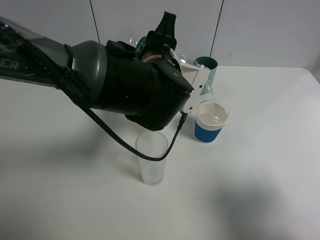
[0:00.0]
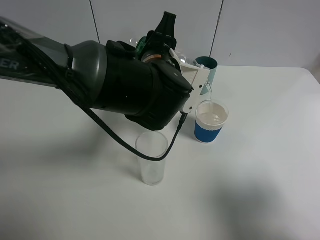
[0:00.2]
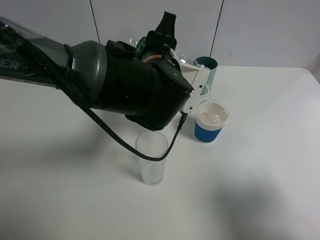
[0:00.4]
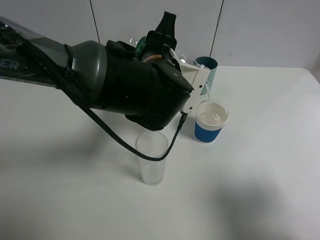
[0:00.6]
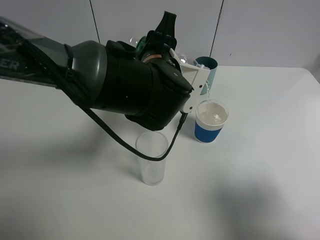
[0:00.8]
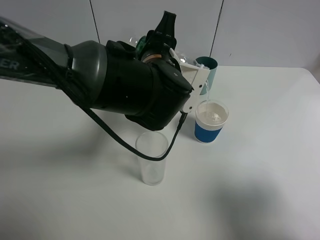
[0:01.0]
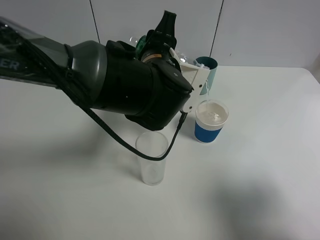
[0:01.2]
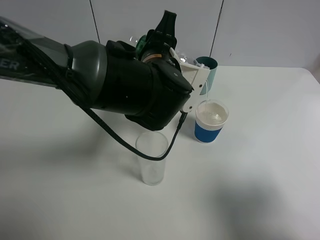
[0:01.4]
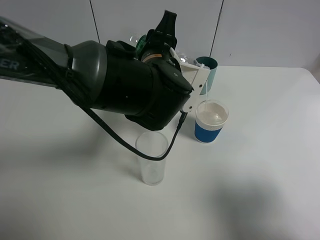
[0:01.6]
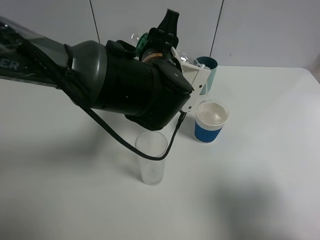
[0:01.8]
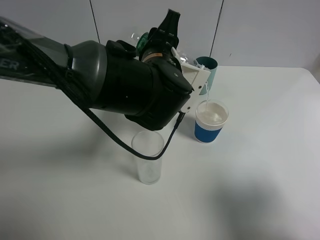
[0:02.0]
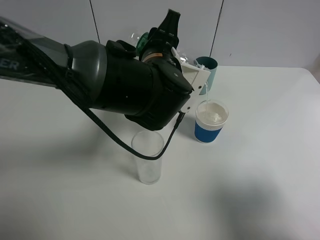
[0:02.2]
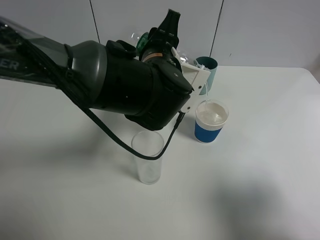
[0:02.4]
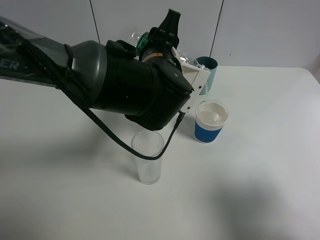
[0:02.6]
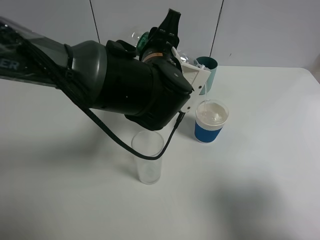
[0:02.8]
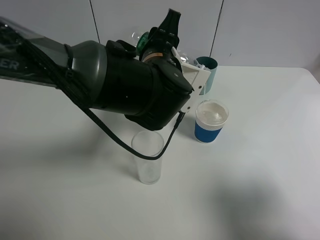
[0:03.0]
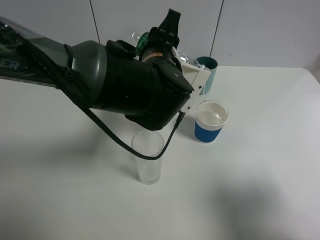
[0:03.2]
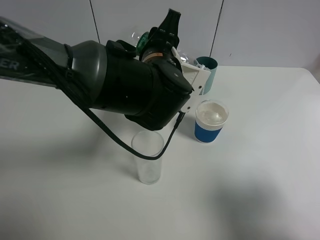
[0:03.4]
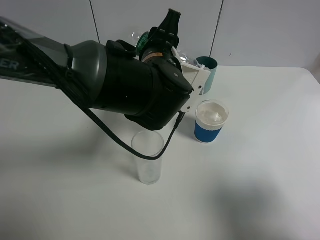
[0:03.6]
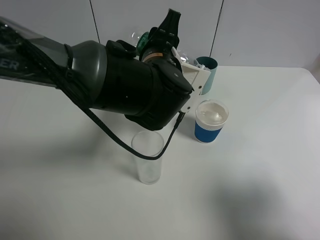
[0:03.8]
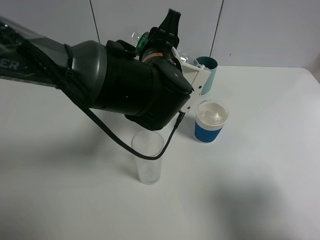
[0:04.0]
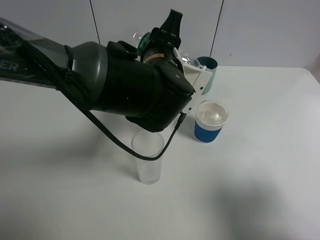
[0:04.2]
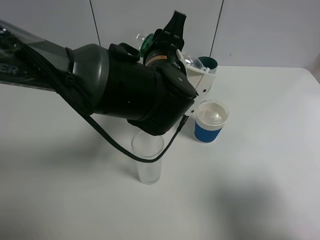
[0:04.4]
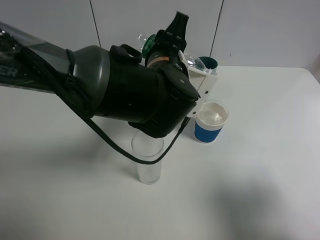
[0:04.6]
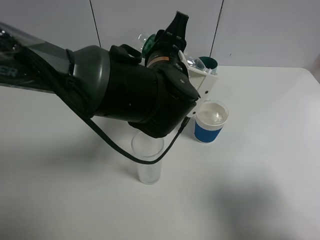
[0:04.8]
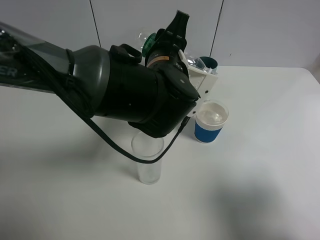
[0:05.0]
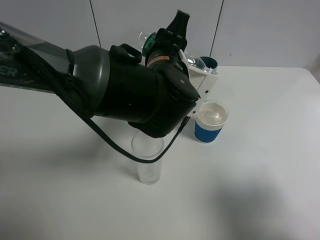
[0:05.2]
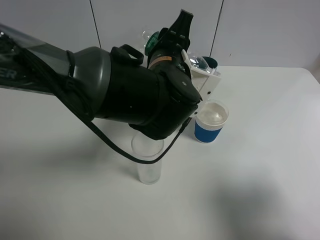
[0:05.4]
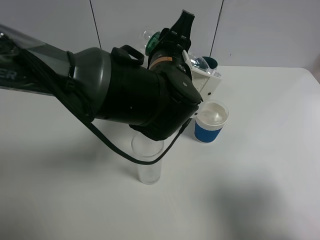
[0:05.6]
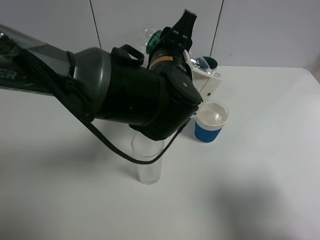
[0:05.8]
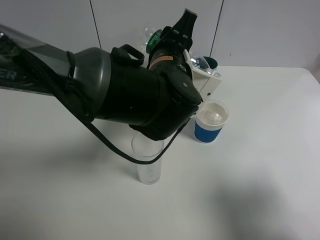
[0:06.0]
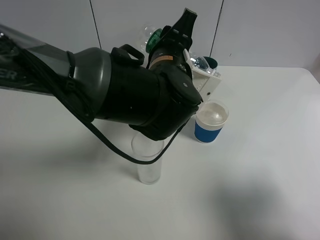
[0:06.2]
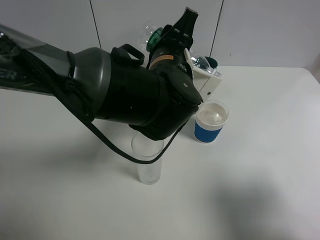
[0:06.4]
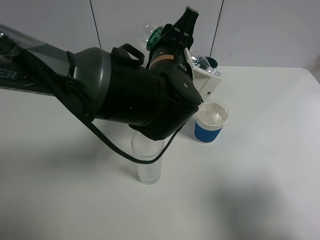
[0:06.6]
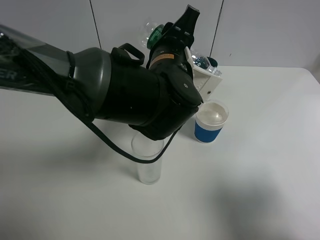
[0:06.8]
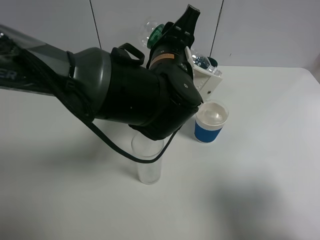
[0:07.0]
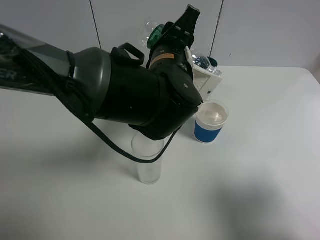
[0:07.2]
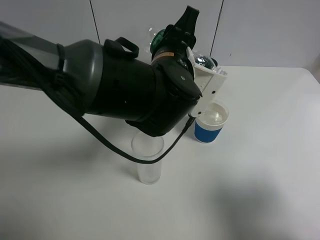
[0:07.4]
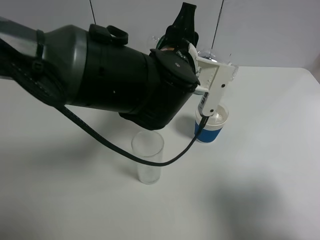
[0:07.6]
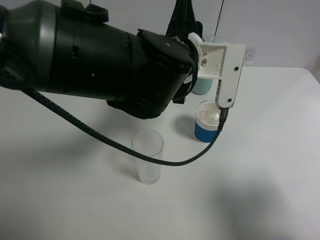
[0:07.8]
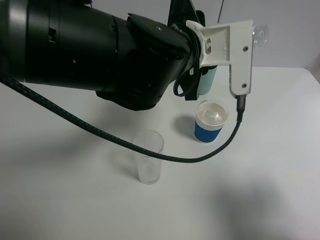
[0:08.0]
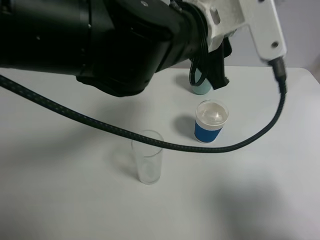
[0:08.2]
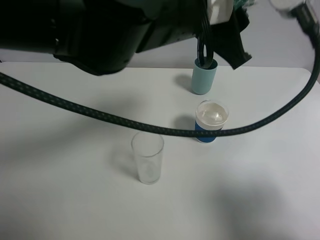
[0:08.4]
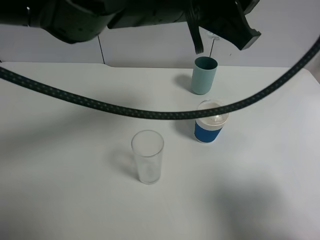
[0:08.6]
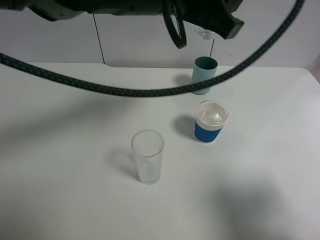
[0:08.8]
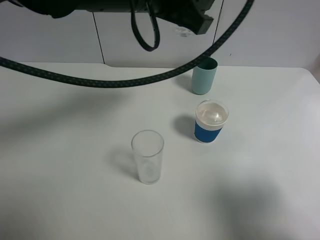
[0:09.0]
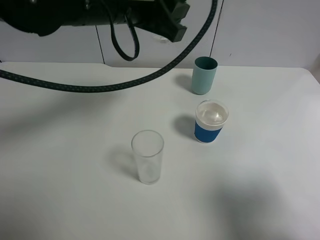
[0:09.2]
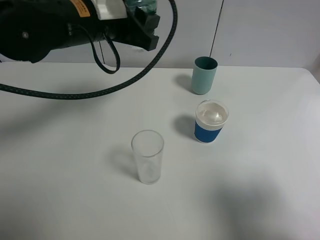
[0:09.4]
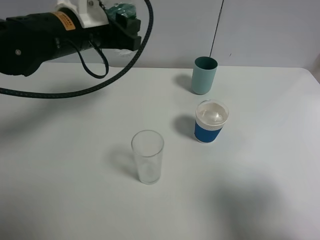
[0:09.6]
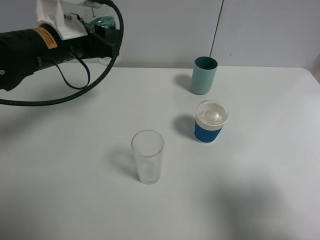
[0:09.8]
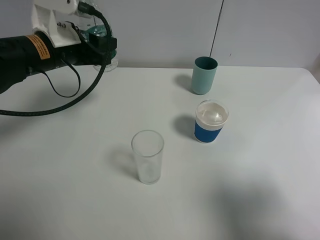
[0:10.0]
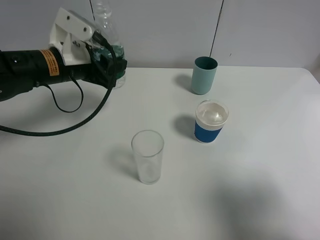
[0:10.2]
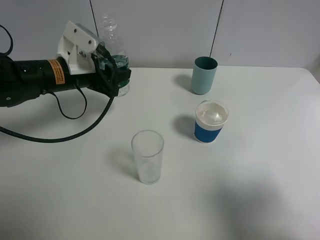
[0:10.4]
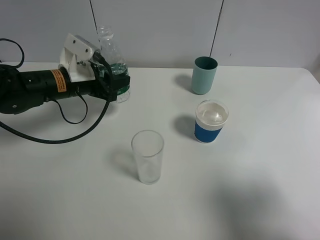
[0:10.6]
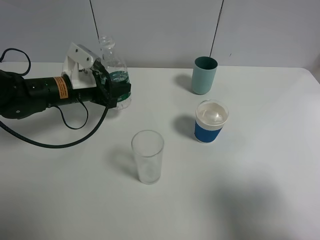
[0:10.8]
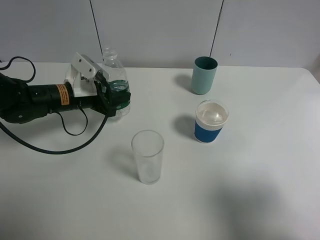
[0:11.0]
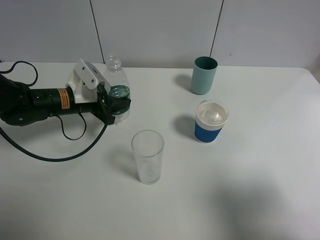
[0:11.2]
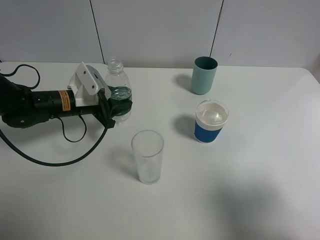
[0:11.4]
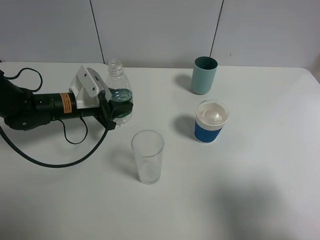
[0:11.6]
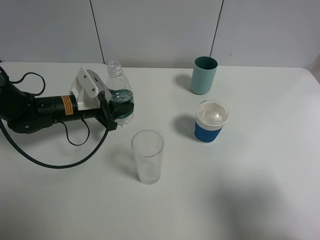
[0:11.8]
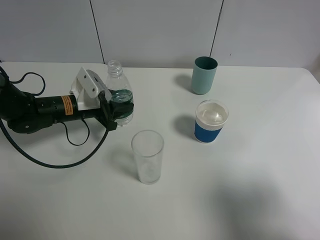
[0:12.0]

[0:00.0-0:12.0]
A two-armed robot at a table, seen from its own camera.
Task of the whole recording: use a gripper to hold the bottle of the drink and pour it into a random cup.
Step, 0:00.0 to 0:07.6: Pour the mineral water into the paper cup with the left gripper.
0:00.0 to 0:03.0: Both grippers stay about where they are.
0:03.0 to 0:04.4: Both grippers stay put.
0:04.4 to 0:07.6: The grippers move only a little.
0:07.6 to 0:09.0: The left gripper shifts some 10 cm upward.
0:09.0 to 0:10.4: The left gripper shifts some 20 cm downward and to the left.
0:10.4 to 0:12.0: The left gripper heads downward, covering about 10 cm.

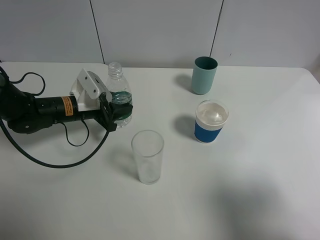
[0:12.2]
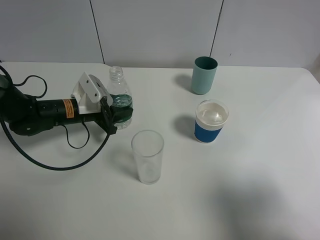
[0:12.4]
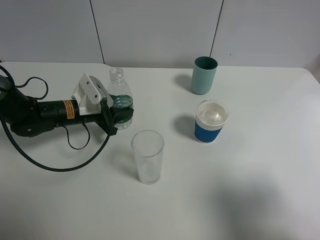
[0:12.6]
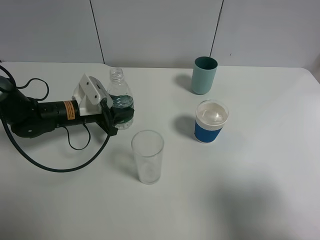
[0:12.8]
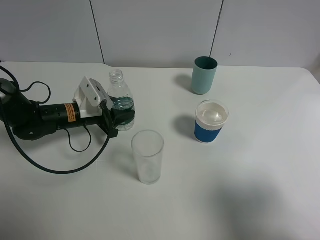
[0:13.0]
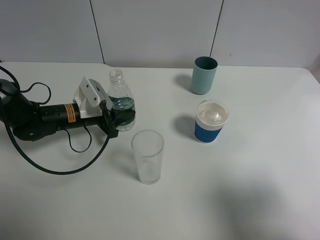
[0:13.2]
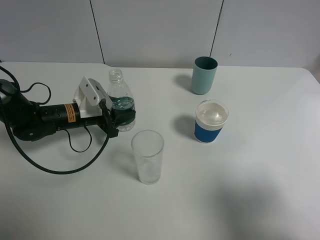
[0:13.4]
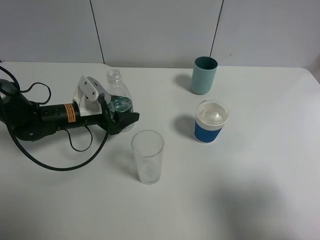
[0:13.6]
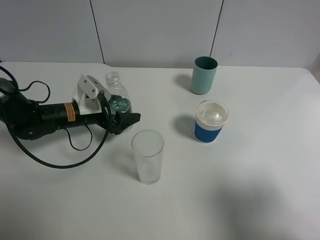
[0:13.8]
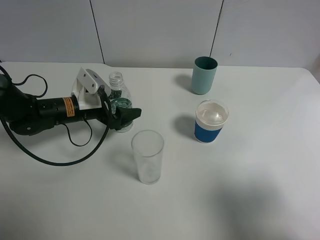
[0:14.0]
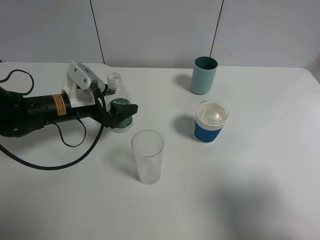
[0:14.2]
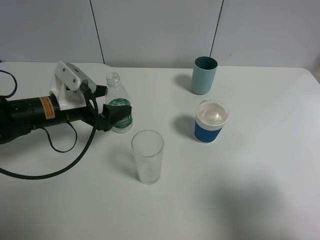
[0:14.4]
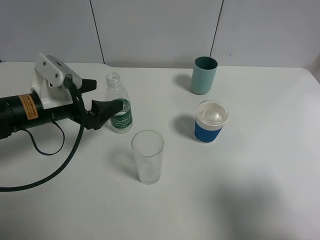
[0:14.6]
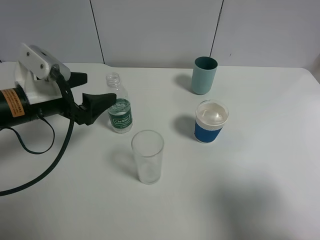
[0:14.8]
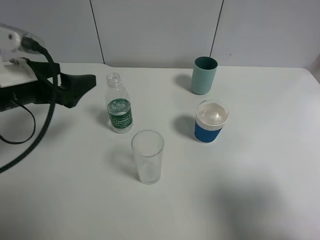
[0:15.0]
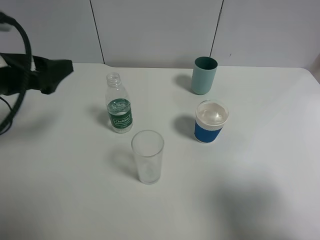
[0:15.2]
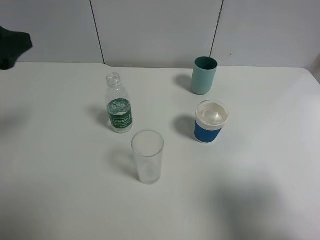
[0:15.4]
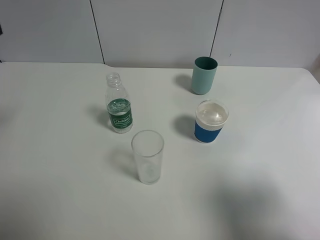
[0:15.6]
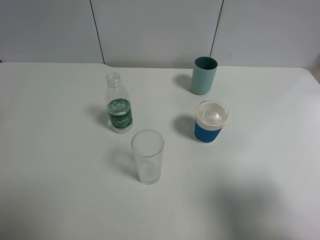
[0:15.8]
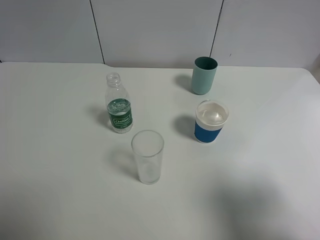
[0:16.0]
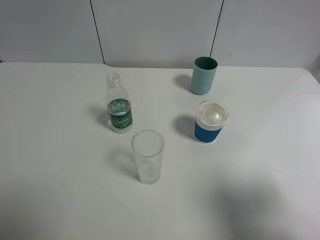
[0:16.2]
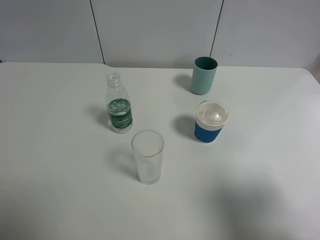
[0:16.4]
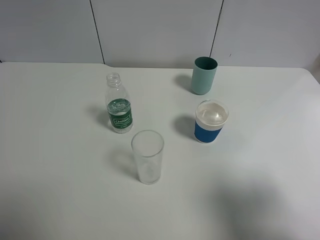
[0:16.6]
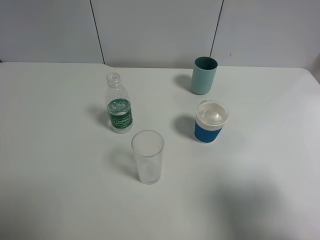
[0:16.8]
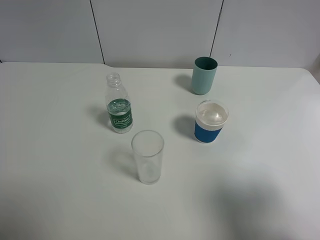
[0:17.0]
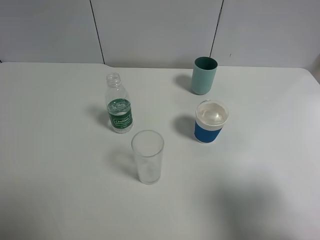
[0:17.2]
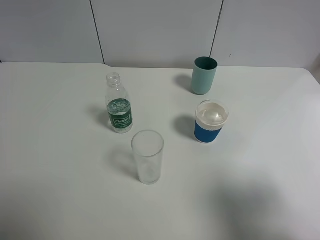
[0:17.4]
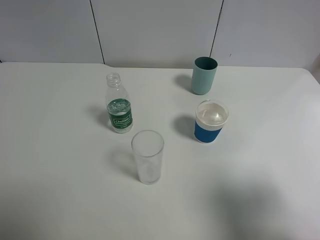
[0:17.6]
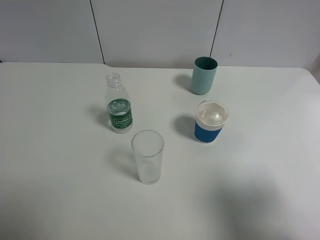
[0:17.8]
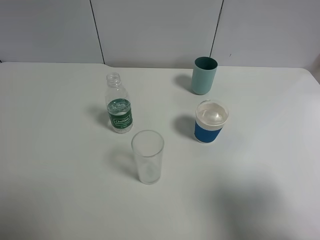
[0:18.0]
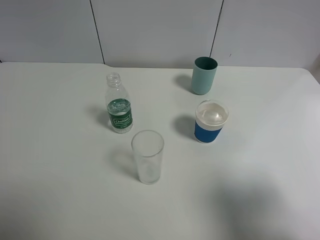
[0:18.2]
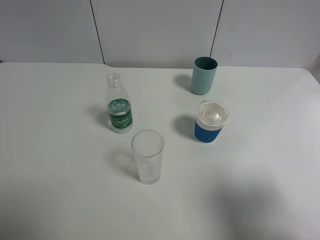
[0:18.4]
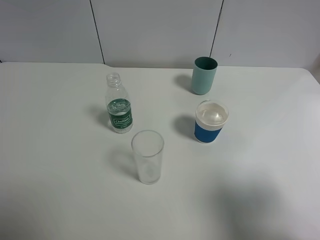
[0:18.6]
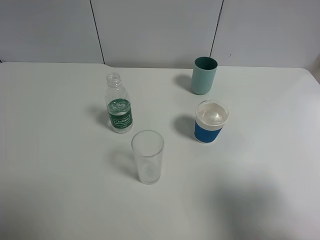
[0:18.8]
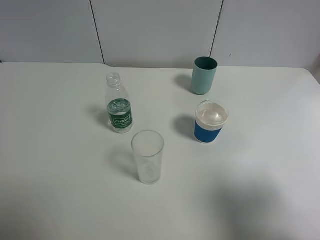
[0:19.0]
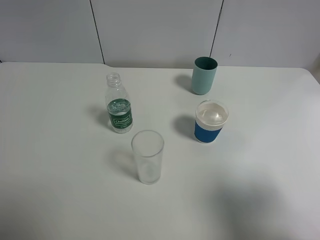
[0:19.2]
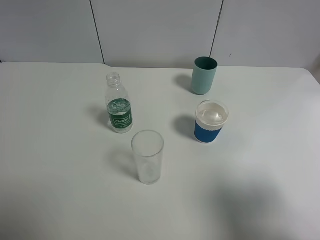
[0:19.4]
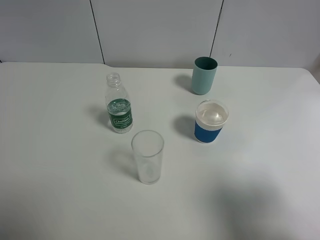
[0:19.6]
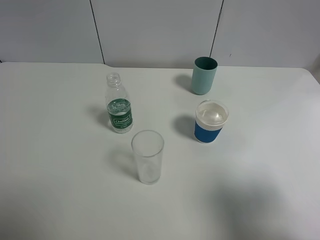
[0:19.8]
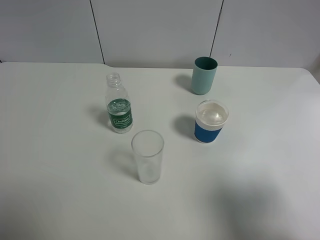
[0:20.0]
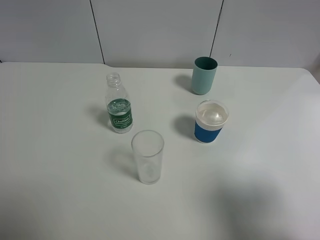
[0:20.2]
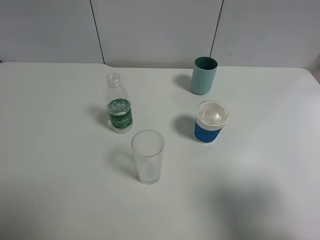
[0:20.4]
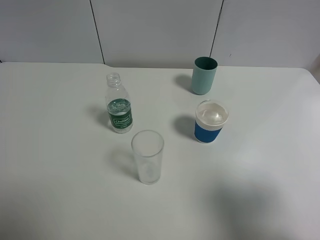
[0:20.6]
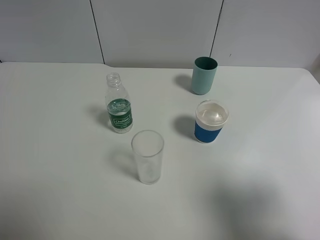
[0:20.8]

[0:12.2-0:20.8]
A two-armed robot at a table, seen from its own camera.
Task of the whole recording: use a gripper to hold the bottle of the drink and pour it into a random cup.
Step, 0:12.2 to 0:14.6: Place the mineral water bottle on the table with the left gripper.
0:12.2 to 0:13.6: The left gripper opens its fingers.
0:13.6 to 0:15.0: The left gripper is displaced upward and backward by roughly 15 cm.
0:15.0 to 0:16.6: The left gripper is displaced backward, upward and to the left by roughly 25 cm.
0:18.0 to 0:20.8: The two grippers keep their place.

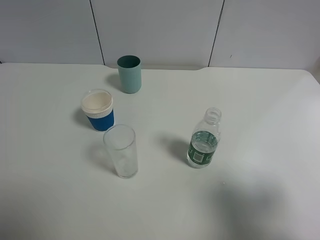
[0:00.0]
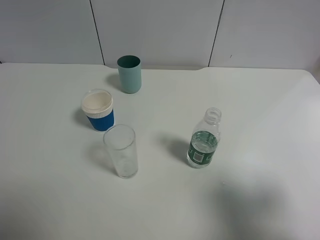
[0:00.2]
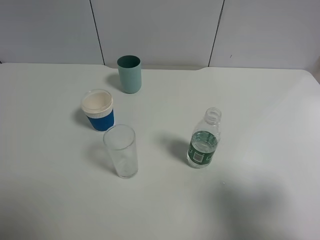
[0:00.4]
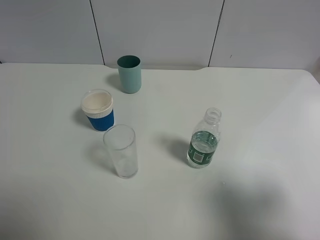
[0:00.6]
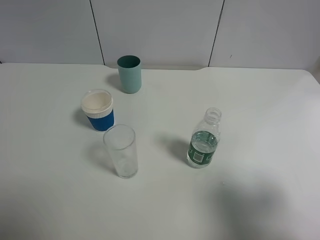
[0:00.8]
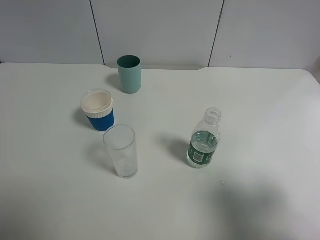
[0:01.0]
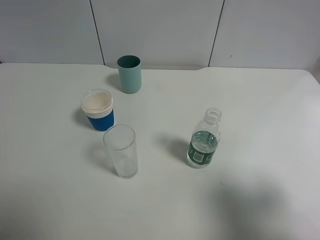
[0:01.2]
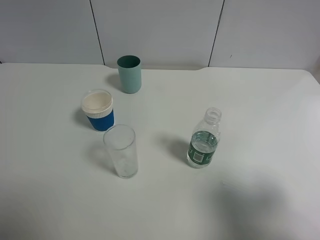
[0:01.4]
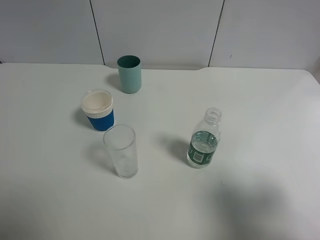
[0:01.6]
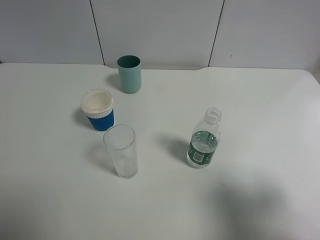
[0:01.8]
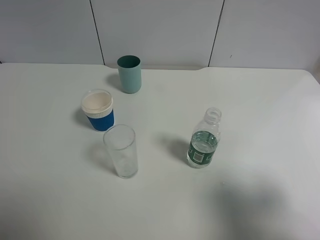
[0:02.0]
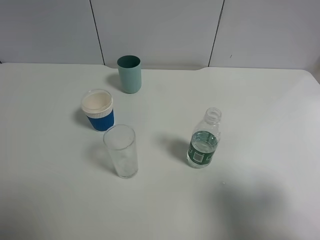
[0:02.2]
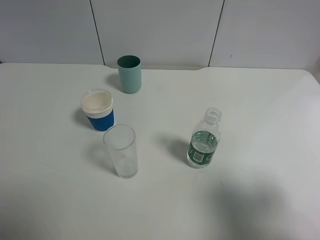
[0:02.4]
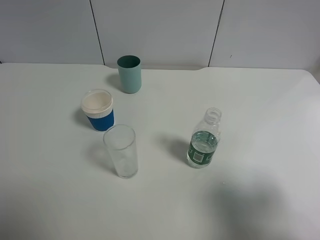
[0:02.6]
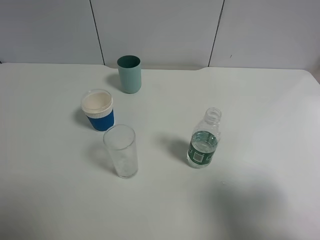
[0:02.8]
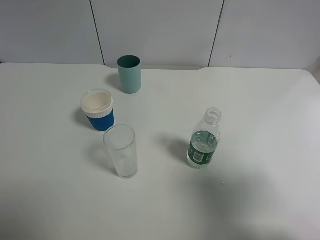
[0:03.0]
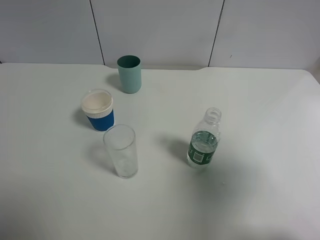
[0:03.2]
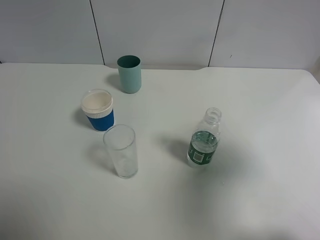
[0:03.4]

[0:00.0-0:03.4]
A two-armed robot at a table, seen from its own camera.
Task of the whole recording: use a gripper to hold the bottle of the drink and pour it into a random cup.
0:00.0 to 0:01.6: The two grippers keep their place.
0:01.6 to 0:03.4: The right gripper goes approximately 10 cm forward.
